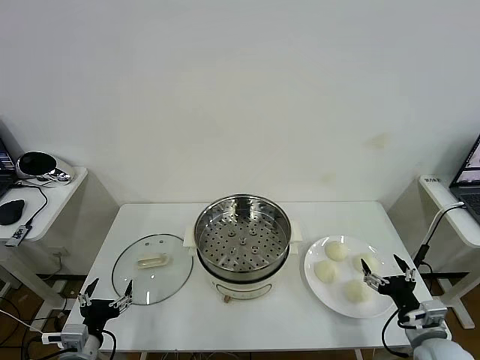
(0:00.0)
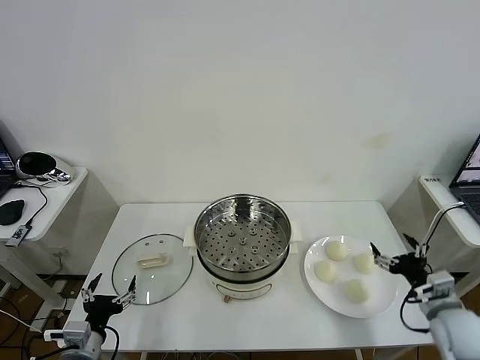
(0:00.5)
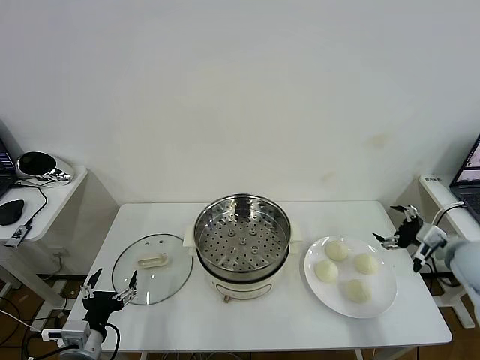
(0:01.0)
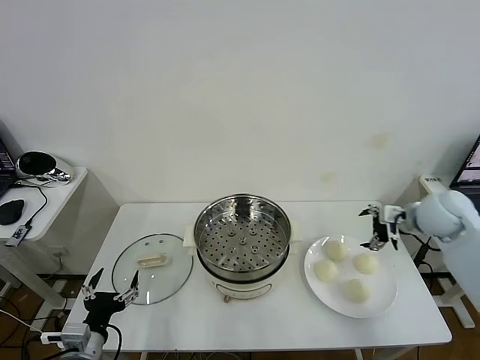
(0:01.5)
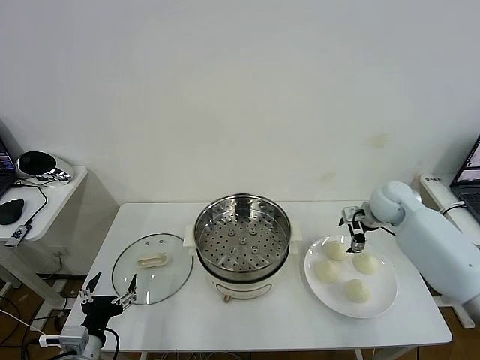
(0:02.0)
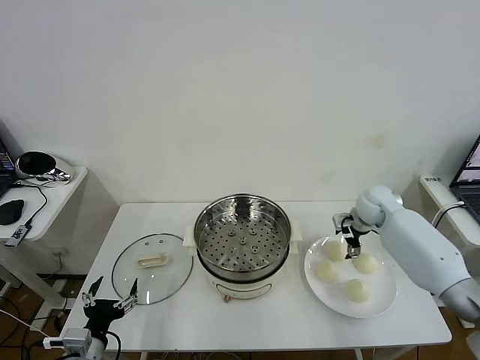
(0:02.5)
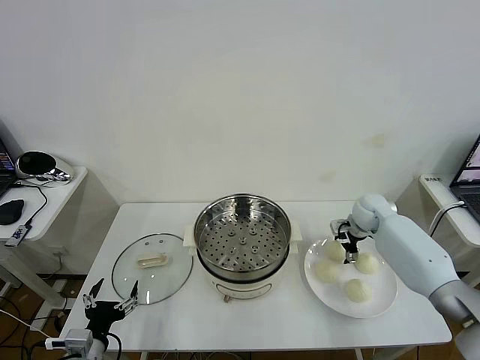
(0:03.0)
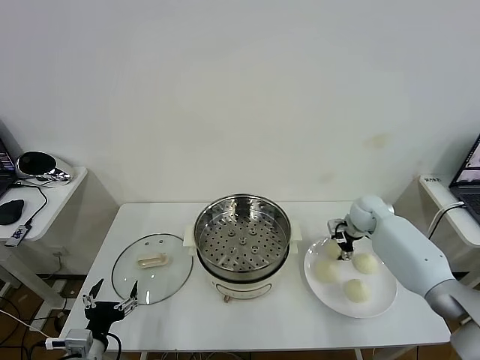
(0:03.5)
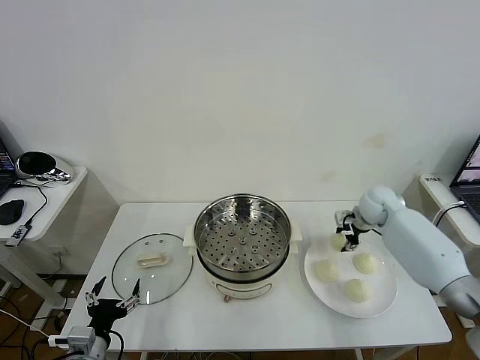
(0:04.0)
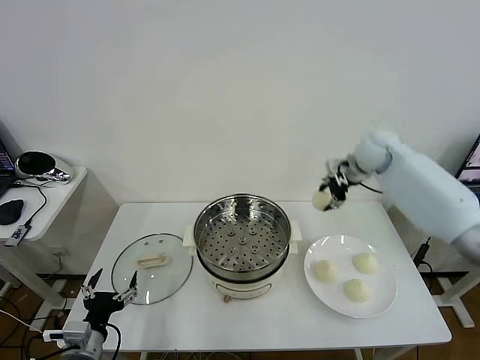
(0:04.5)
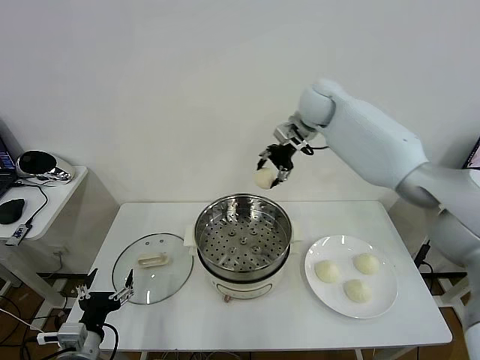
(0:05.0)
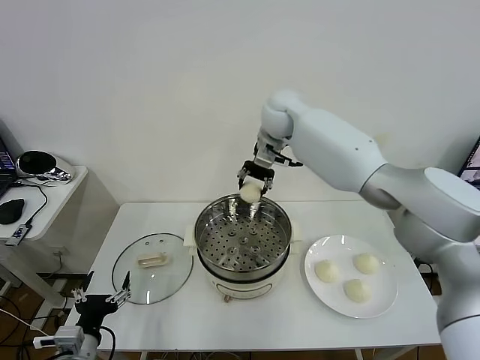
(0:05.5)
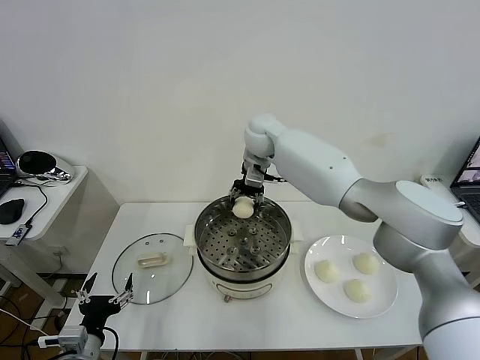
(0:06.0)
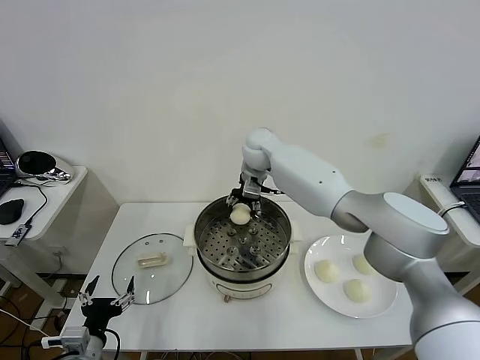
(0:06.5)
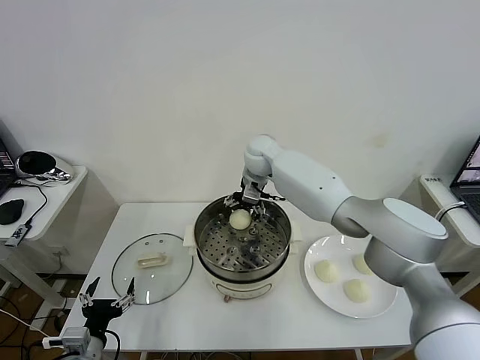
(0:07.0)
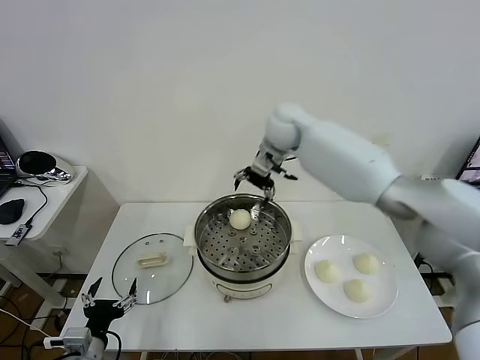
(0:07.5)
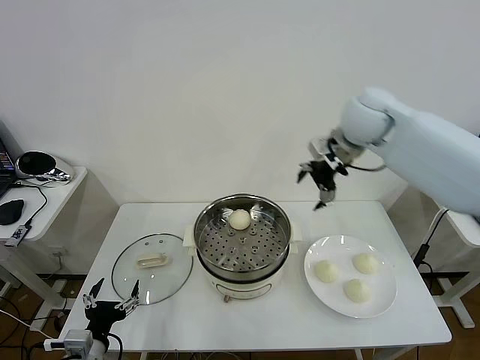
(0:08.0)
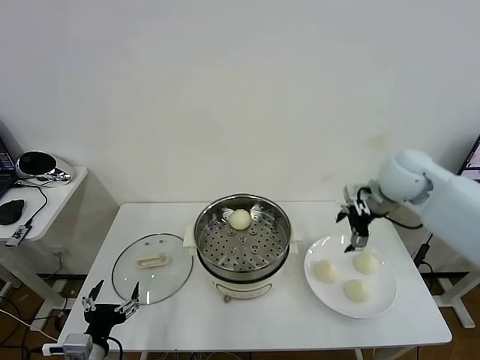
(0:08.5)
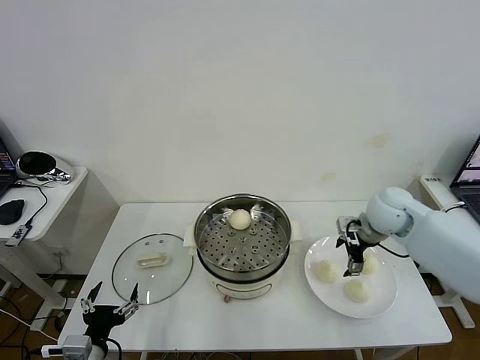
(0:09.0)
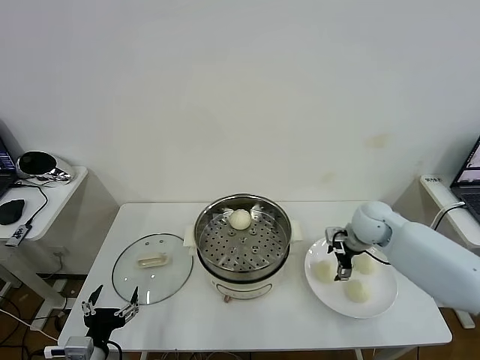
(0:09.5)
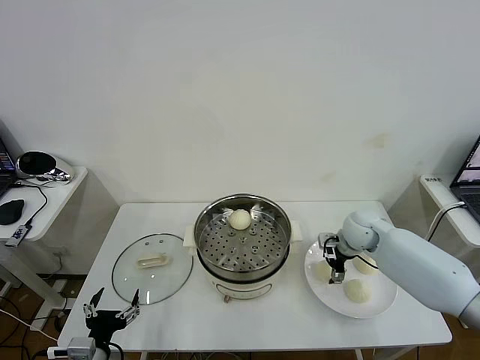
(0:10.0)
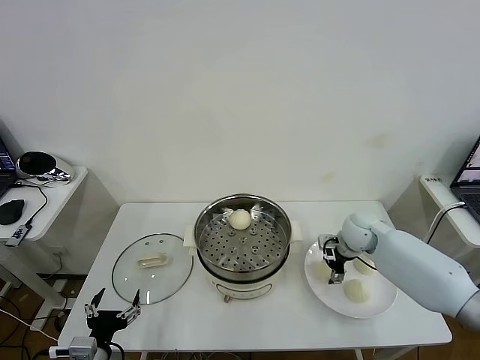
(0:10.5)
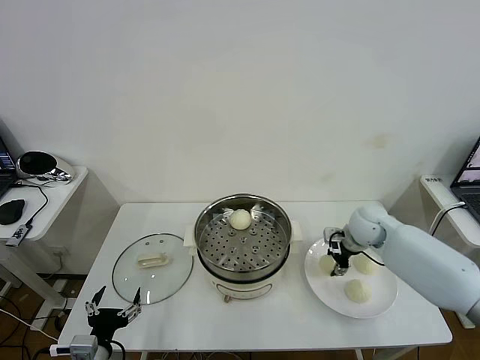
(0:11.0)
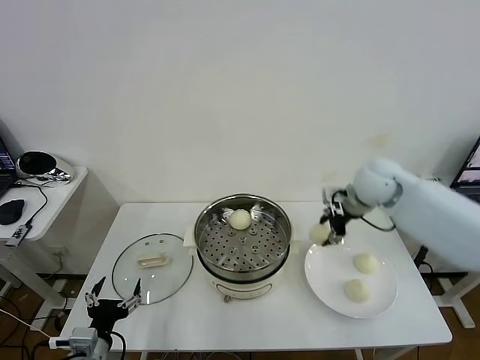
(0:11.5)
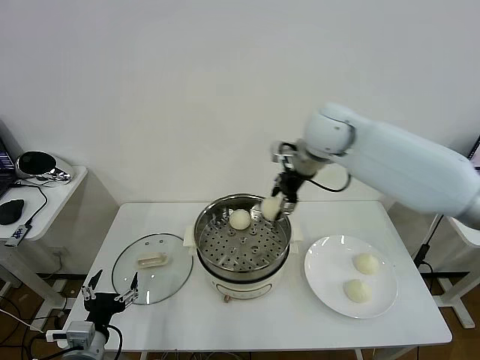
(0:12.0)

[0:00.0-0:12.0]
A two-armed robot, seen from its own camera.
Task of the whole recording: take steamed baozi put them in steamer then cover it.
Step, 0:00.0 to 0:03.5: Grasp the baozi in the plate with right gripper.
Step, 0:04.0 to 0:07.0: Place the baozi on the steamer with right gripper.
Step, 0:07.5 to 0:10.5: Grasp the baozi in the plate with right gripper.
0:02.0 to 0:04.0: The right gripper closes up.
0:04.0 to 0:06.0: The right gripper goes roughly 35 cm to the left and upward.
0:06.0 to 0:08.0: The right gripper travels to the right and backward by some 25 cm, and opens up.
0:08.0 to 0:10.0: The right gripper travels downward by approximately 25 cm.
0:10.0 to 0:12.0: The right gripper moves upward and to the left, roughly 30 cm, and closes its fingers.

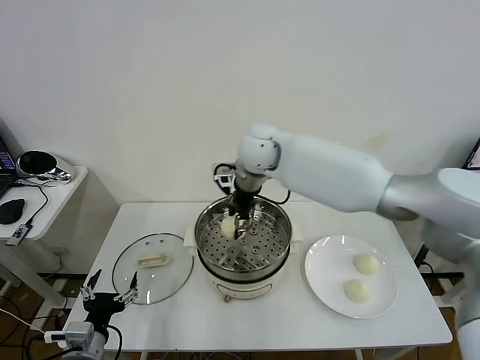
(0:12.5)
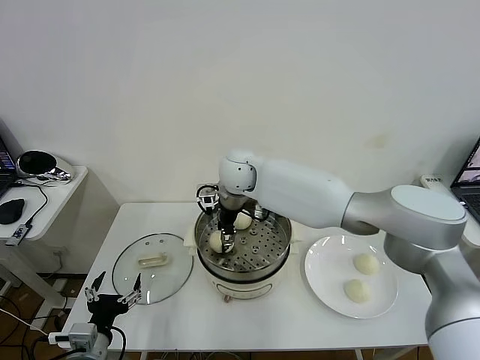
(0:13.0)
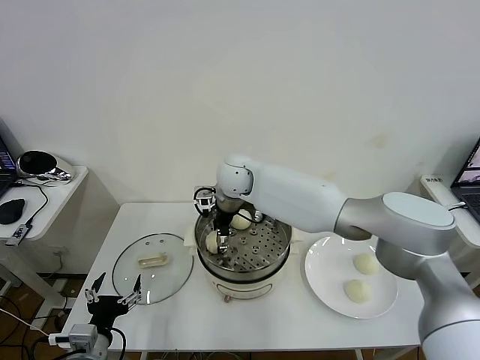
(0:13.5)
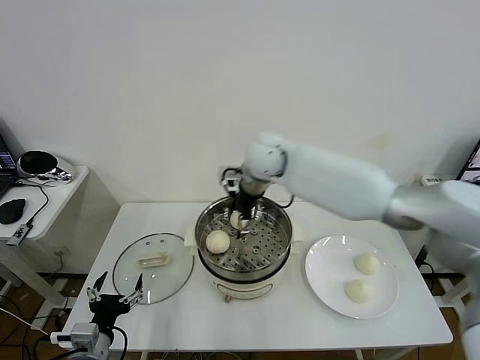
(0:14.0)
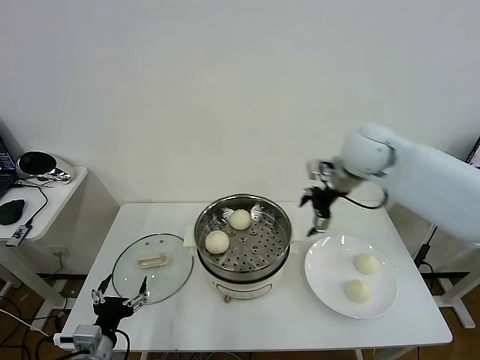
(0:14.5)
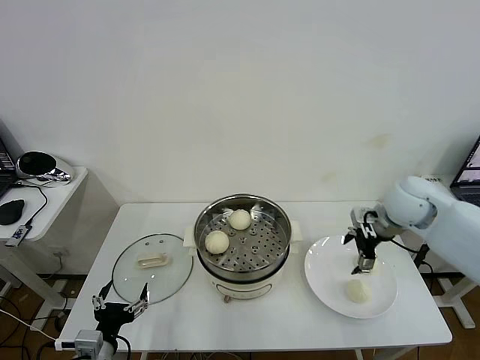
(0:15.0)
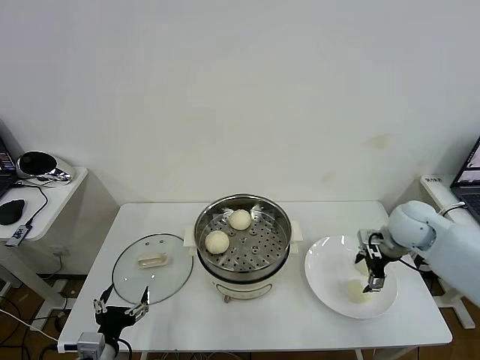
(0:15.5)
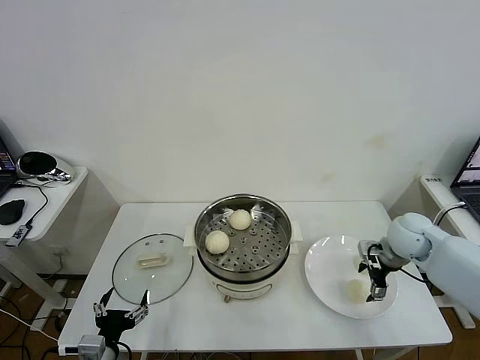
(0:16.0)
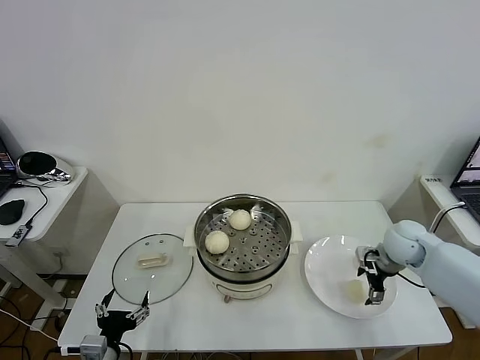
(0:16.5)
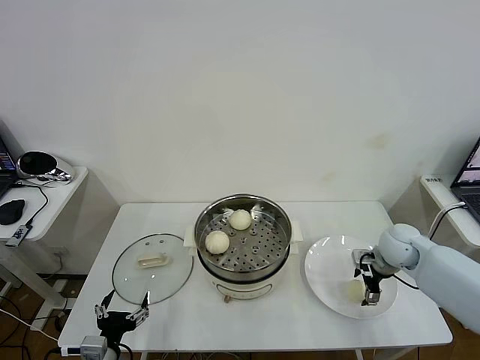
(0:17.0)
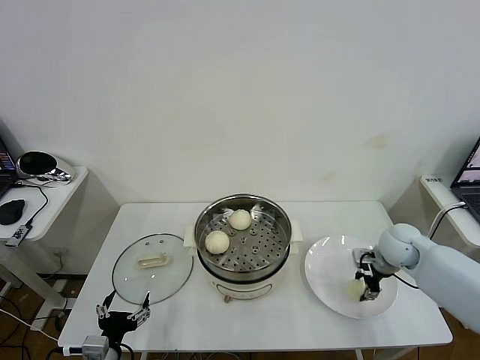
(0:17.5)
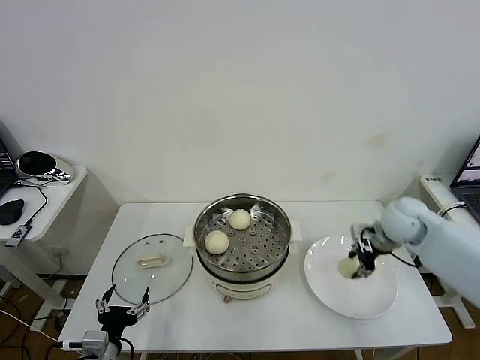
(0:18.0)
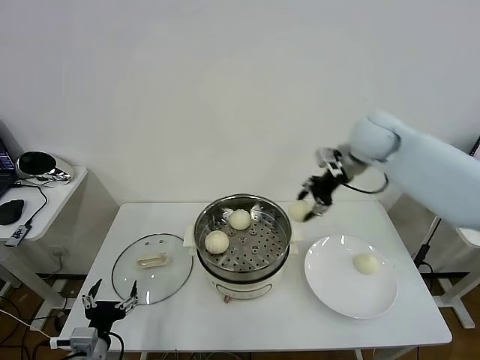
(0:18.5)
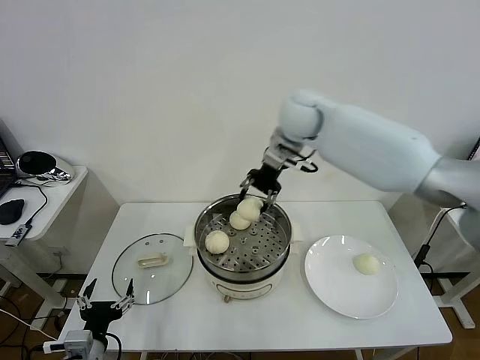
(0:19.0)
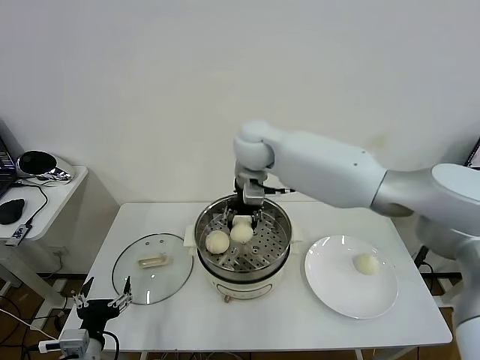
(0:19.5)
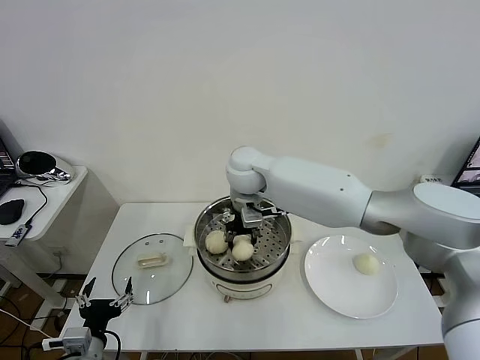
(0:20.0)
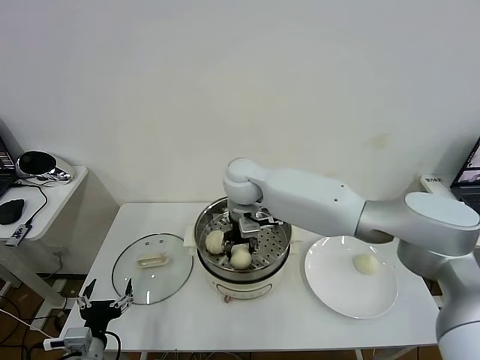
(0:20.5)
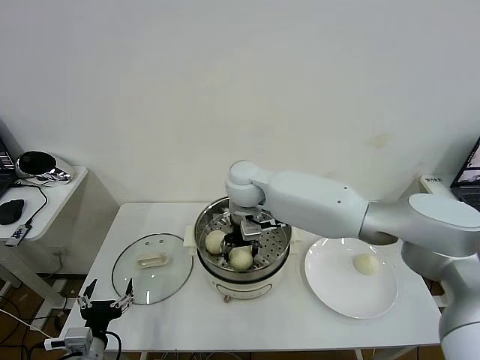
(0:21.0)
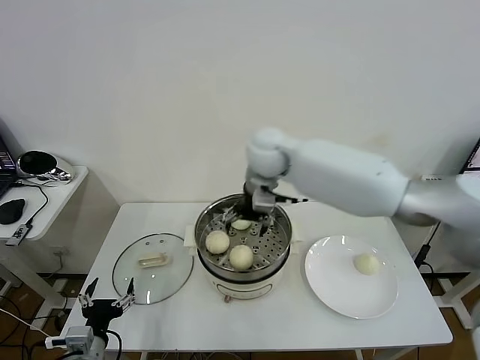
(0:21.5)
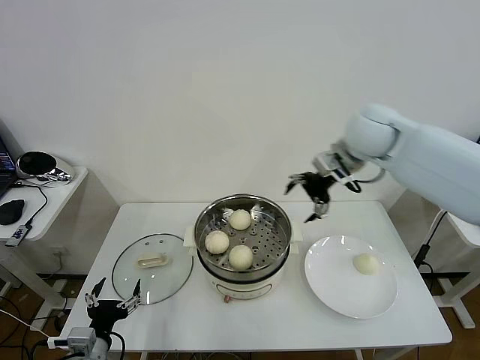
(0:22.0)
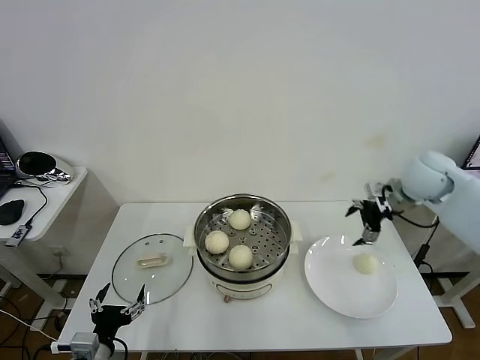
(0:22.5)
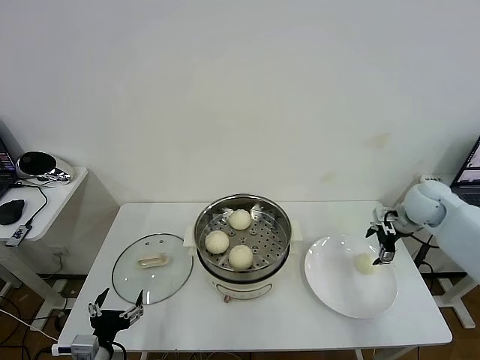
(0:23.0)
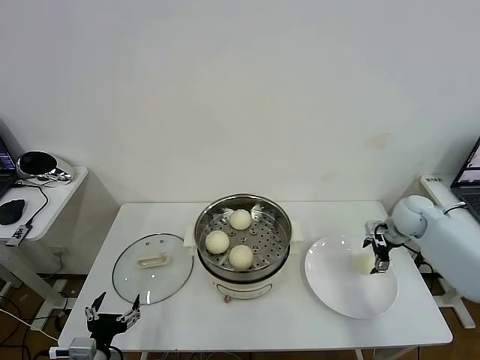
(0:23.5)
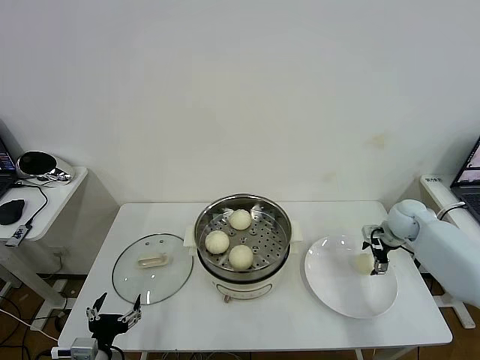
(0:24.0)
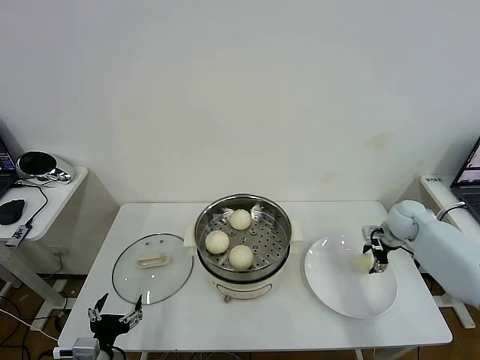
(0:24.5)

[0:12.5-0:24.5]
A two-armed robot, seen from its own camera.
Task of the whole recording: take steamed baozi put them in steamer then cover it.
Step, 0:14.0 to 0:17.5: Grasp the baozi in the plate with right gripper.
Step, 0:18.0 to 0:21.0: Place the baozi on the steamer with right gripper.
0:12.5 to 0:14.5: The right gripper heads to the right, covering some 25 cm, and opens its fingers.
0:14.5 to 0:16.5: The right gripper heads downward and to the right, covering roughly 25 cm.
0:16.5 to 0:18.5: The right gripper shifts roughly 30 cm upward, to the left and forward, and closes.
0:18.5 to 0:20.5: The right gripper is displaced to the left and downward by some 25 cm.
0:20.5 to 0:22.5: The right gripper heads to the right, covering some 40 cm, and opens up.
0:22.5 to 0:24.5: The right gripper travels downward by about 15 cm, and closes.

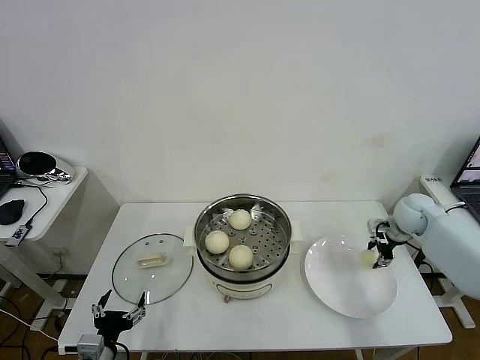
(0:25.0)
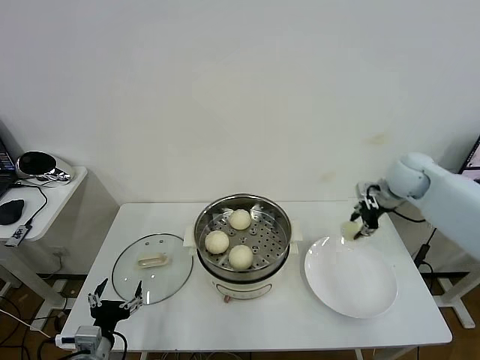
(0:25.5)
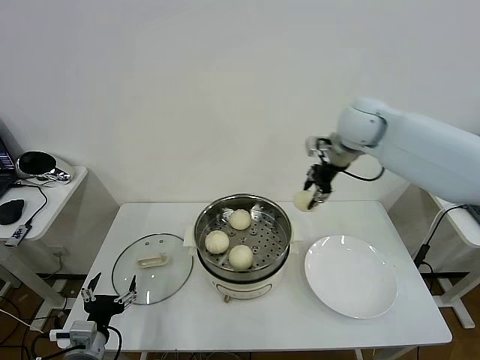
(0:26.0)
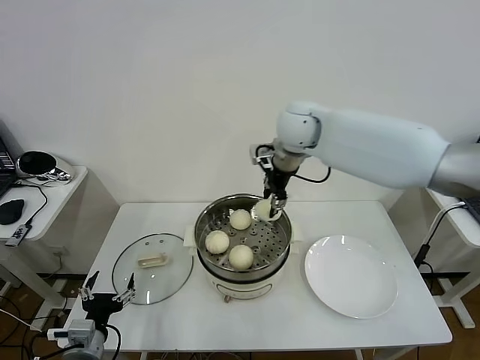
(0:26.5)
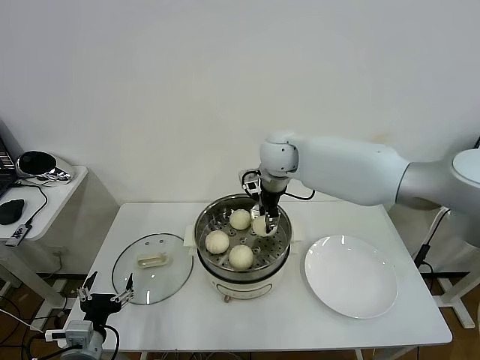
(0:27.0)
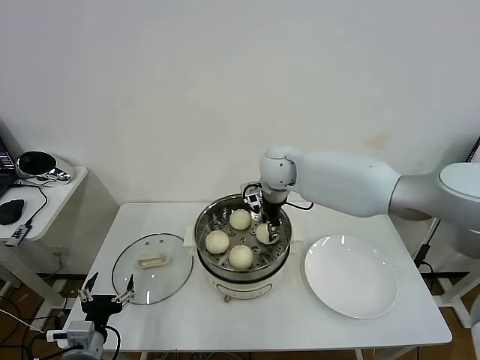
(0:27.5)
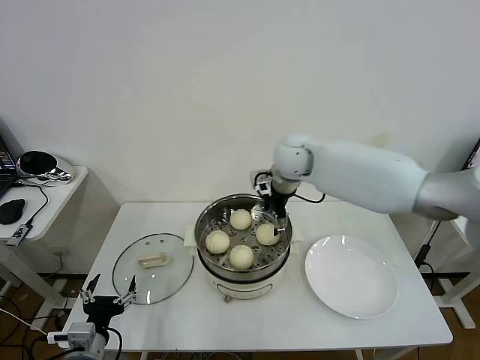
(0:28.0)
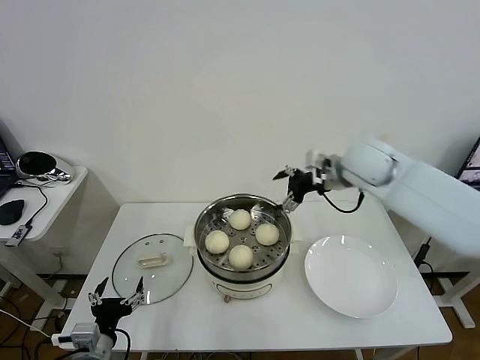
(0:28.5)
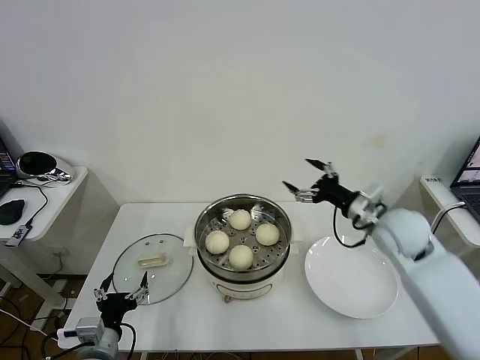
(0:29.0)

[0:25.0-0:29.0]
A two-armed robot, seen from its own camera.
Task of the whole recording: take steamed baozi put them in steamer then cover it.
Step, 0:25.0 to 0:27.5: Place the baozi on the steamer with right gripper.
0:25.0 to 0:27.0: The right gripper travels to the left and upward by roughly 40 cm.
0:27.0 to 0:29.0: The right gripper heads to the right and backward, covering roughly 30 cm, and opens.
